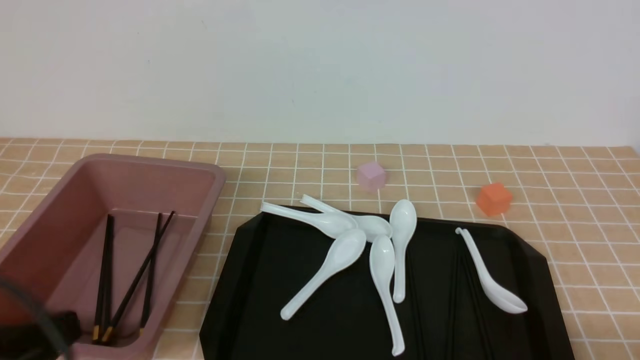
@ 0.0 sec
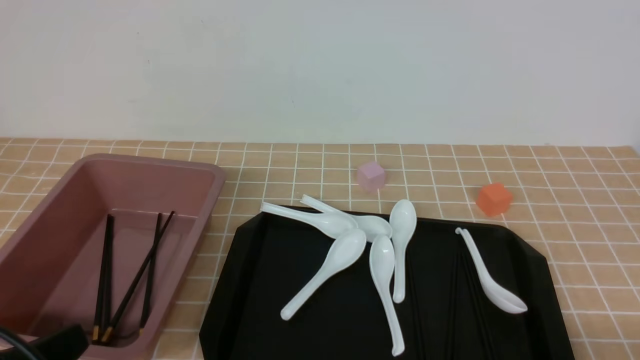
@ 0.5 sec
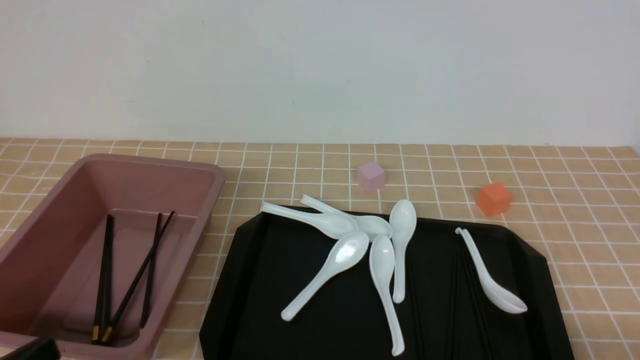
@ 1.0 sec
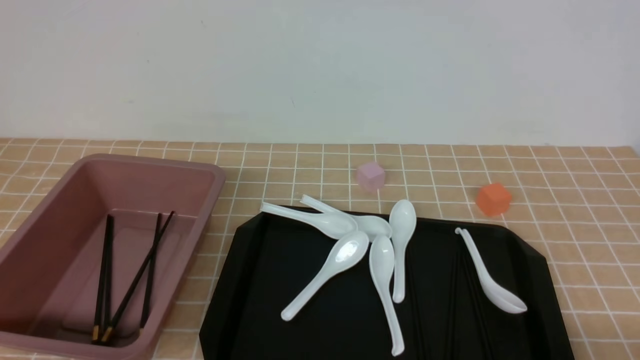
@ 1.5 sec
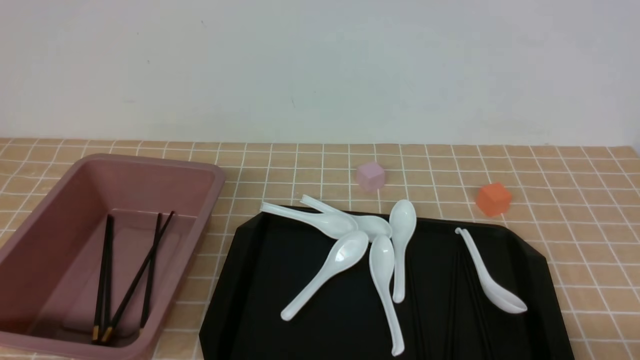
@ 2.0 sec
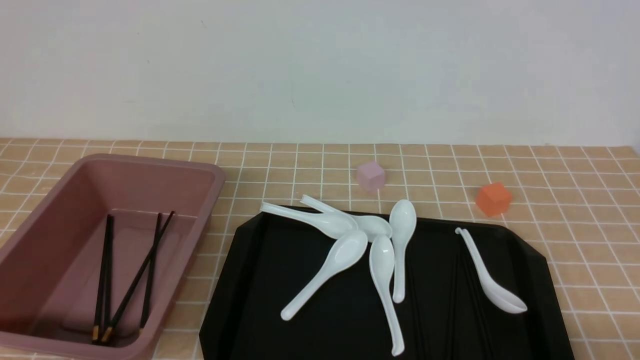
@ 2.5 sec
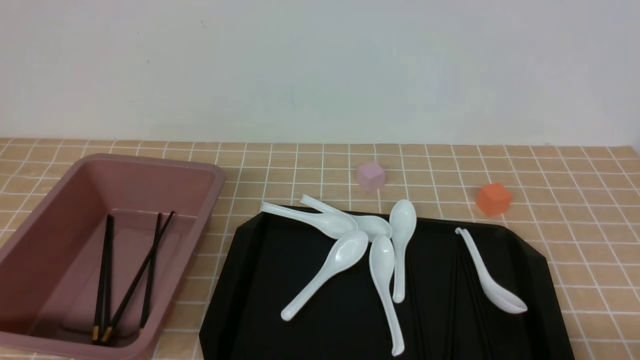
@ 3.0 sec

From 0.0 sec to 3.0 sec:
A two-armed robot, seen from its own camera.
From 0.0 sec to 1.5 sec: The left gripper heads downward, covering some 10 cm.
From 1.5 sec to 3.0 sec: Both grippers stay about where they are.
